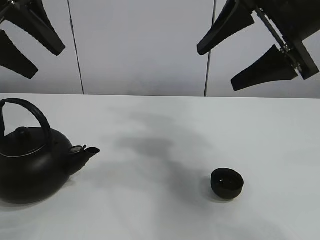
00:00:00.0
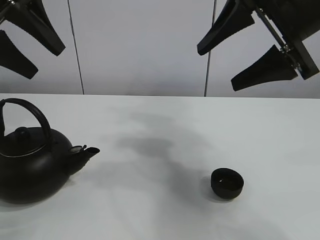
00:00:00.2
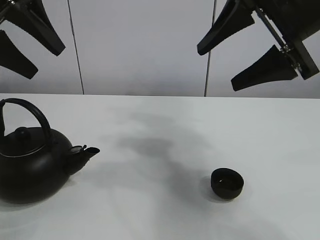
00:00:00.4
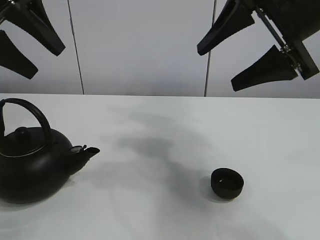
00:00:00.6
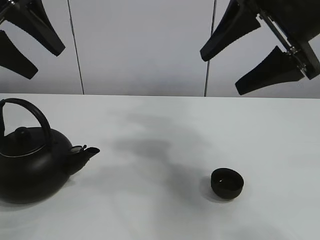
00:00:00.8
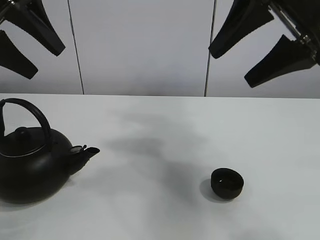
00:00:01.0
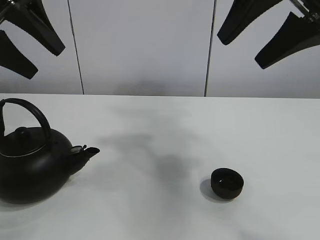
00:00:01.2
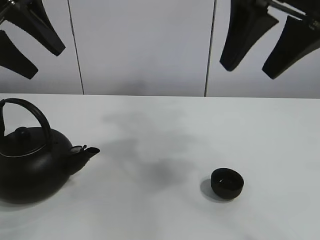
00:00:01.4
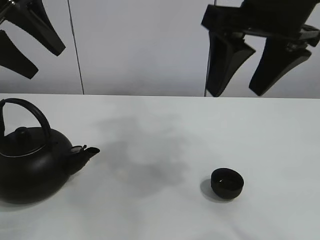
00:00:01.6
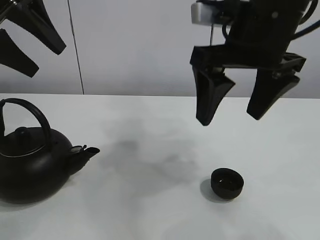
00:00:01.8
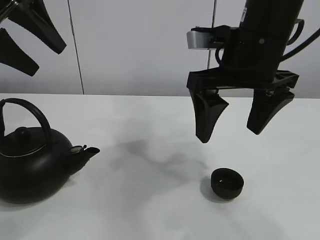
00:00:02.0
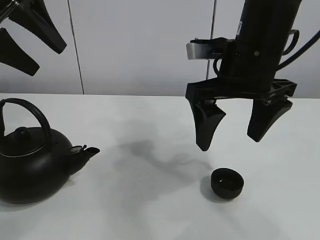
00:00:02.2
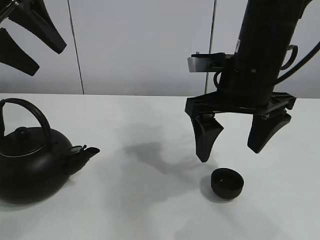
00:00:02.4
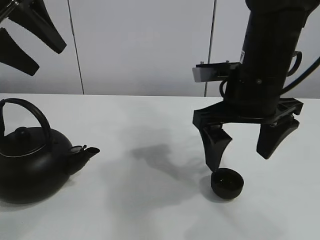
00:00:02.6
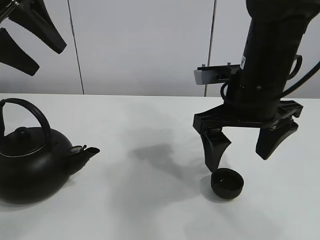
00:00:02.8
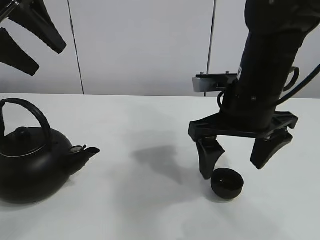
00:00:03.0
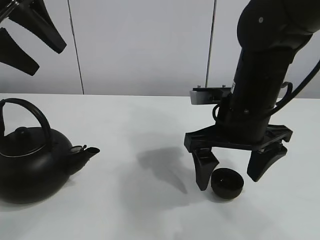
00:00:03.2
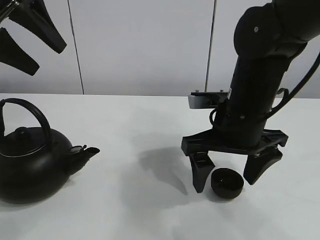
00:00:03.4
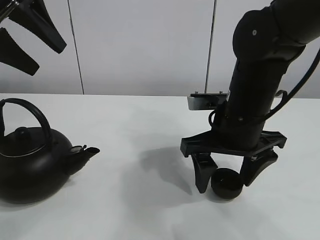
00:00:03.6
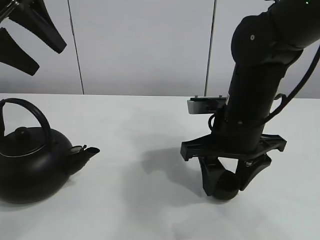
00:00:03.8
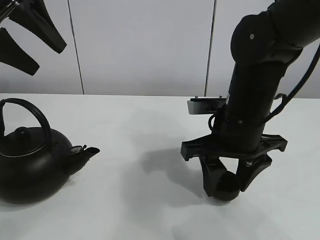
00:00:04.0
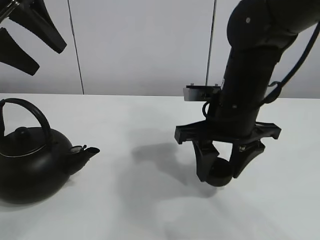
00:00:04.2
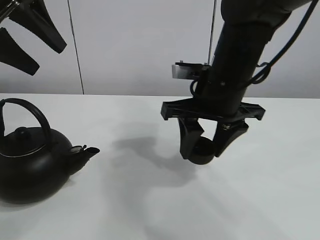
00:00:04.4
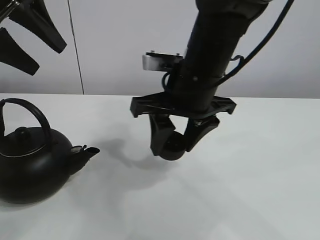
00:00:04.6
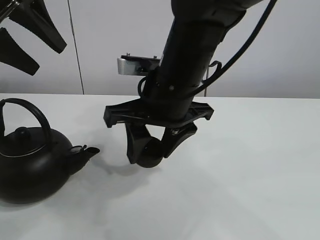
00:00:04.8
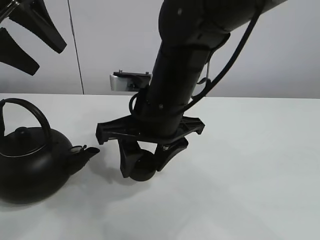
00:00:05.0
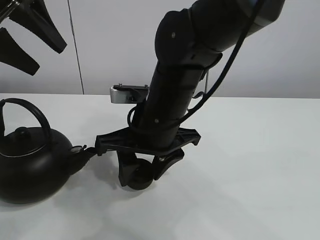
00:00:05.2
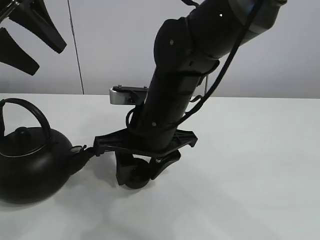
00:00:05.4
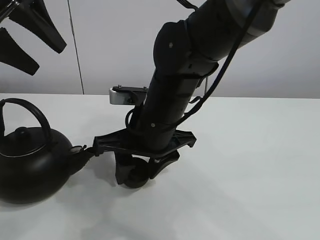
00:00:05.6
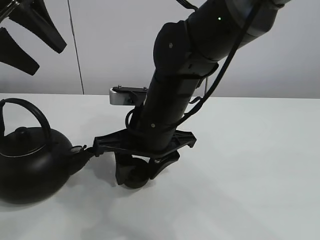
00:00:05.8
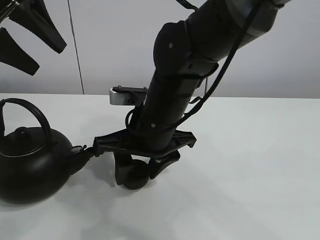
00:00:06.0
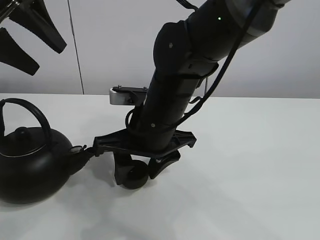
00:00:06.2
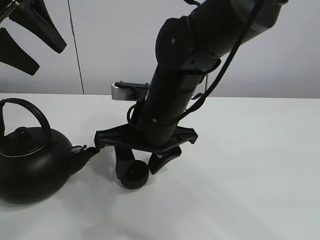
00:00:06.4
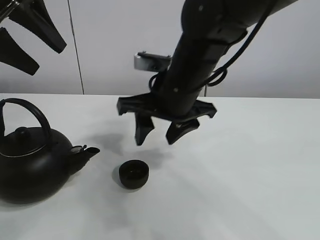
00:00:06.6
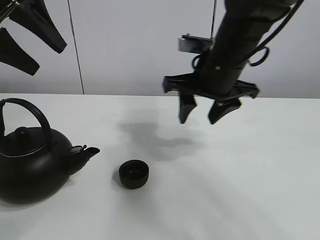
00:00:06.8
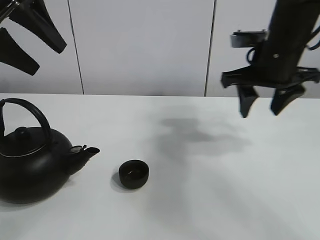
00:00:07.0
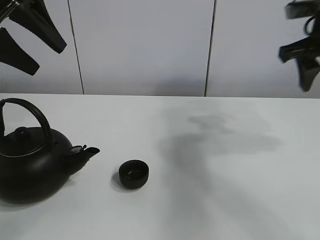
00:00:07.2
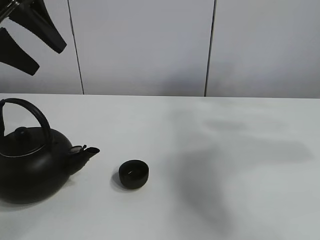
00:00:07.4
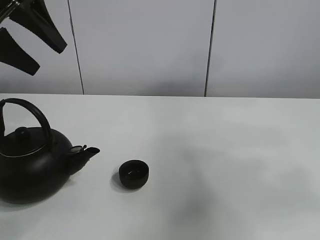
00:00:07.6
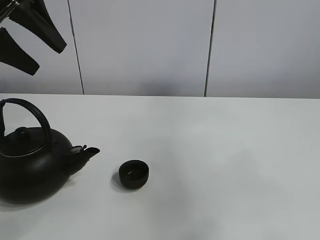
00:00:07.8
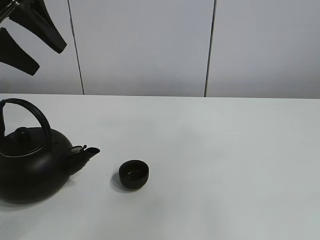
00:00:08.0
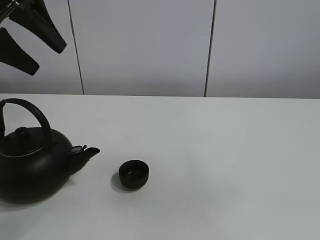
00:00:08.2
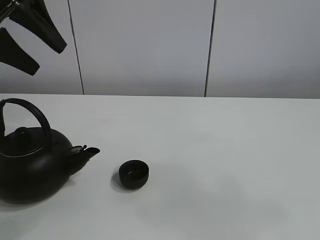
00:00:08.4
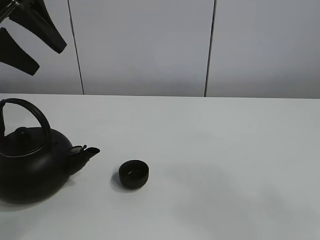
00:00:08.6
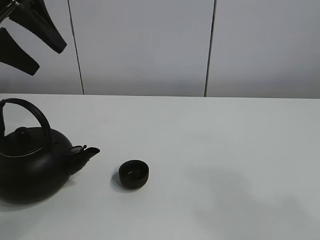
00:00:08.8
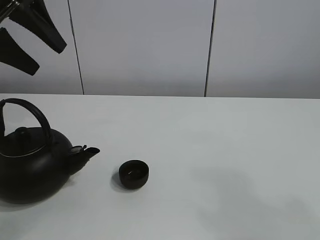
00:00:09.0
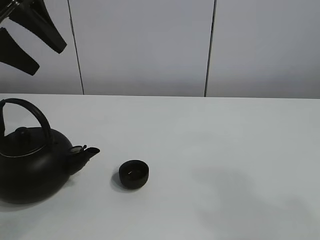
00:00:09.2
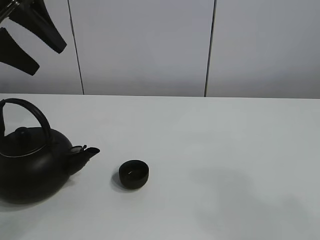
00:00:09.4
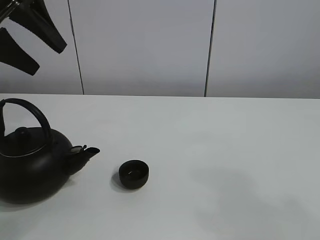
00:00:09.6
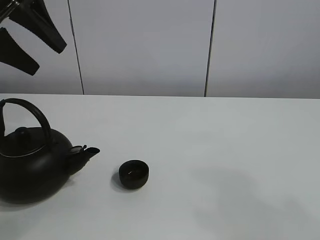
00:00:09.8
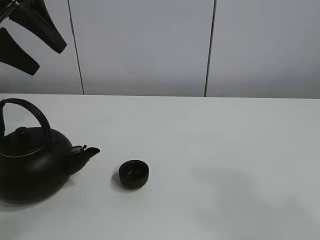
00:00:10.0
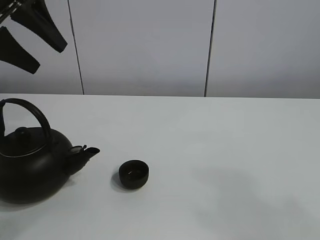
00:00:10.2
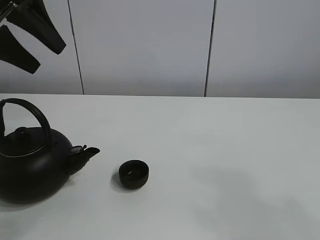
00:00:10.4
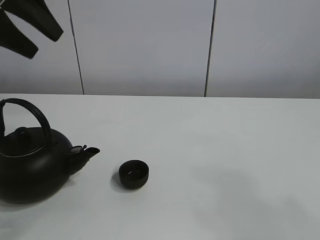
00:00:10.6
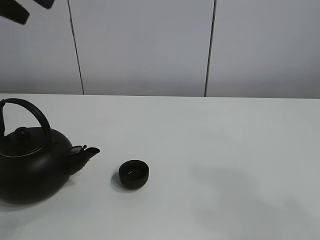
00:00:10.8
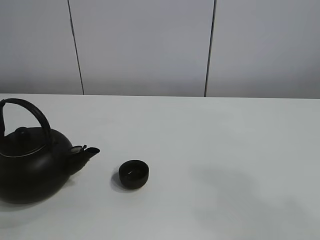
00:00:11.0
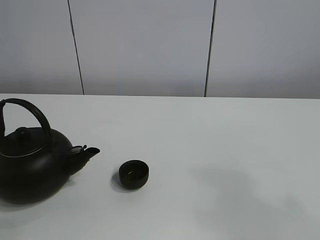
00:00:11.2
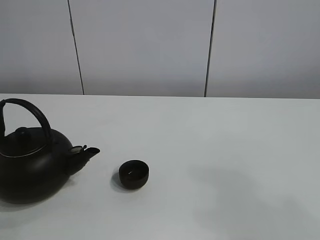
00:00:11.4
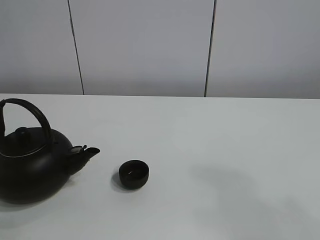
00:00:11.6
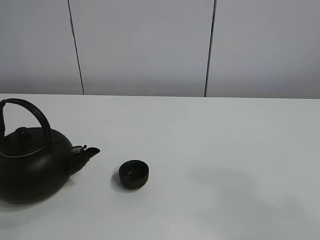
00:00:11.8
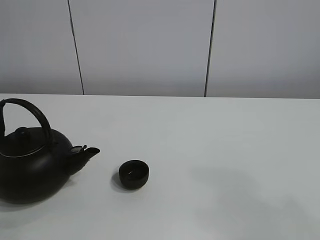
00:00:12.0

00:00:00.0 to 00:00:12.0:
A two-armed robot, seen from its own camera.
Task of the whole recording: pour tea into the teacup.
Step, 00:00:00.0 to 00:00:04.0: Pick up the teacup with the right gripper.
Step, 00:00:04.2 to 00:00:06.2: Place the teacup in the center of view with the right gripper.
Step, 00:00:06.4 to 00:00:11.4: Pick up the teapot with the left gripper.
00:00:01.6 to 00:00:03.0: The right gripper shifts about 15 cm downward, and opens its fingers.
00:00:03.0 to 00:00:04.4: The right gripper closes.
00:00:04.4 to 00:00:06.0: The right gripper heads to the left and downward, covering about 10 cm.
00:00:06.0 to 00:00:07.6: The right gripper travels to the right and upward by some 50 cm.
00:00:07.6 to 00:00:09.0: The right gripper is displaced backward and downward by about 25 cm.
00:00:10.4 to 00:00:12.0: The left gripper is displaced backward by approximately 20 cm.

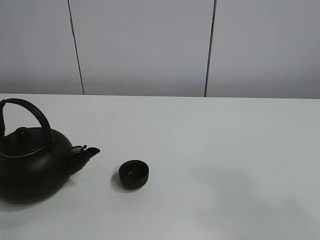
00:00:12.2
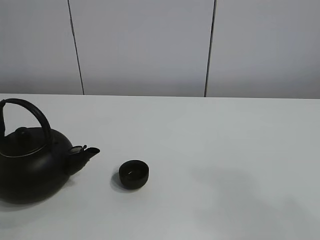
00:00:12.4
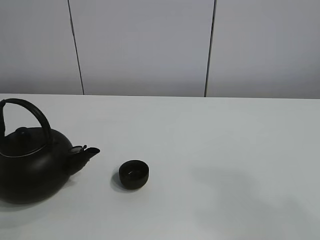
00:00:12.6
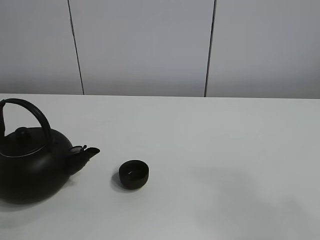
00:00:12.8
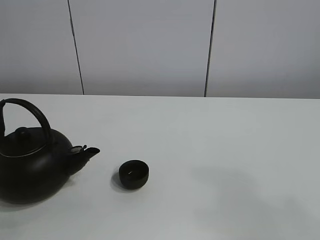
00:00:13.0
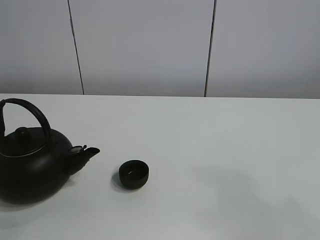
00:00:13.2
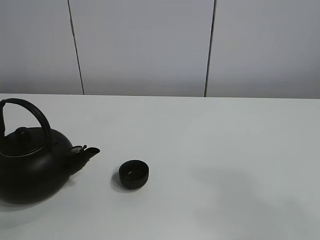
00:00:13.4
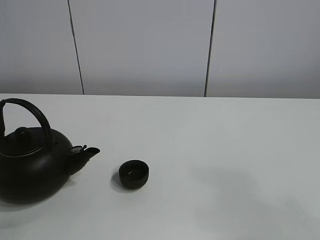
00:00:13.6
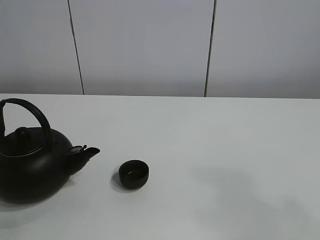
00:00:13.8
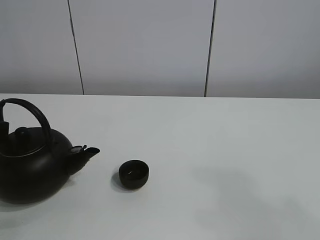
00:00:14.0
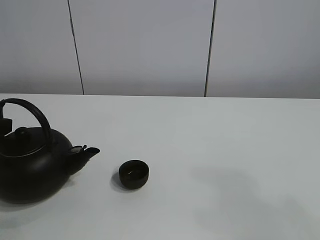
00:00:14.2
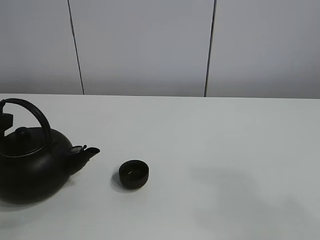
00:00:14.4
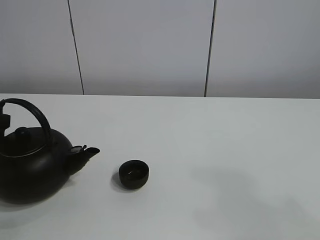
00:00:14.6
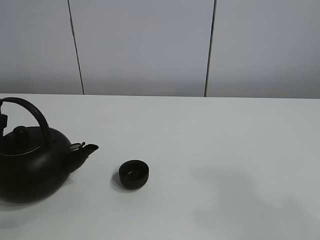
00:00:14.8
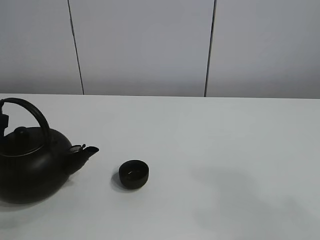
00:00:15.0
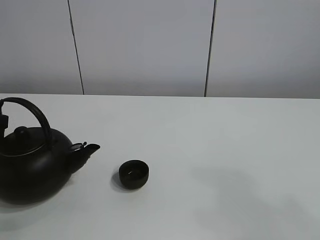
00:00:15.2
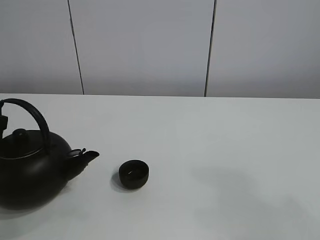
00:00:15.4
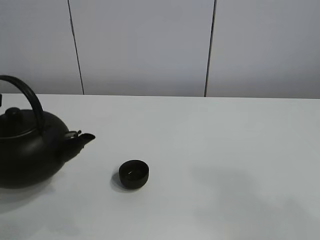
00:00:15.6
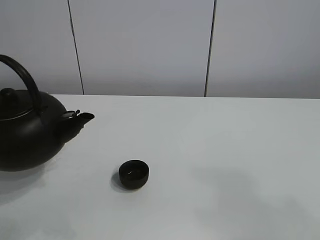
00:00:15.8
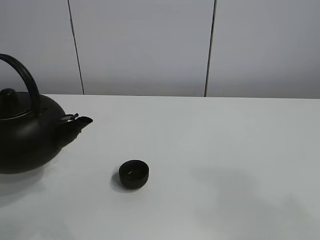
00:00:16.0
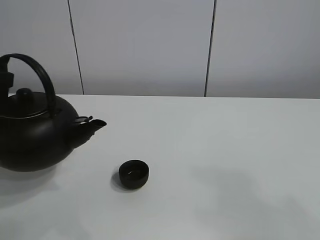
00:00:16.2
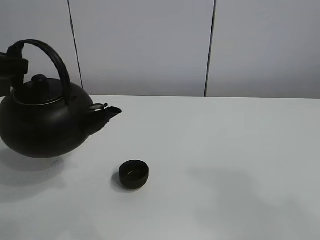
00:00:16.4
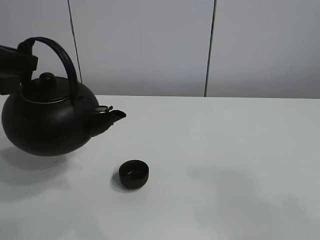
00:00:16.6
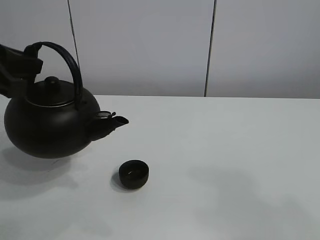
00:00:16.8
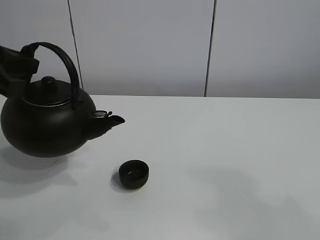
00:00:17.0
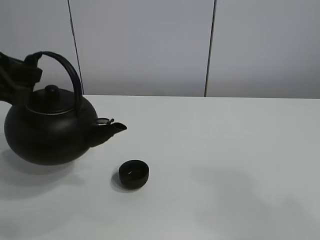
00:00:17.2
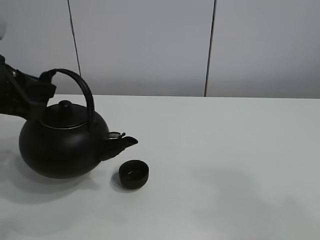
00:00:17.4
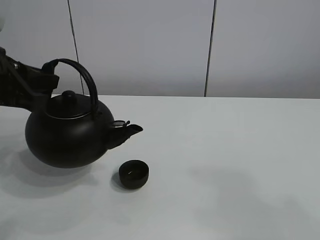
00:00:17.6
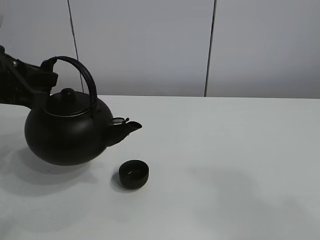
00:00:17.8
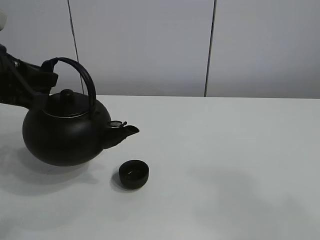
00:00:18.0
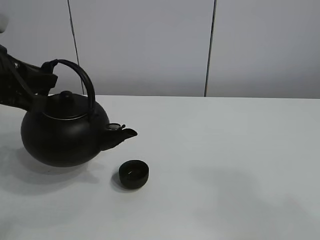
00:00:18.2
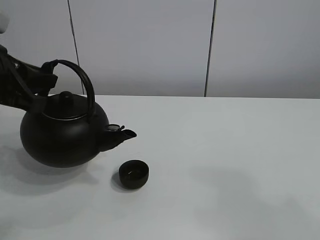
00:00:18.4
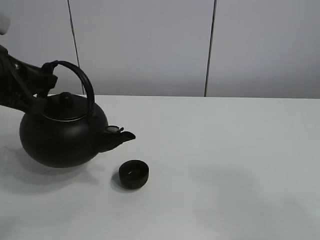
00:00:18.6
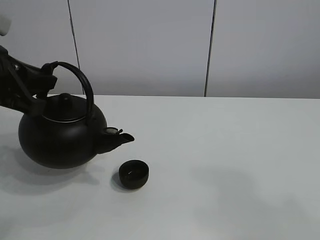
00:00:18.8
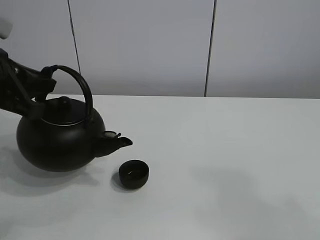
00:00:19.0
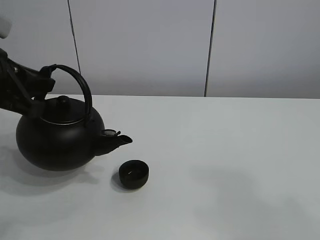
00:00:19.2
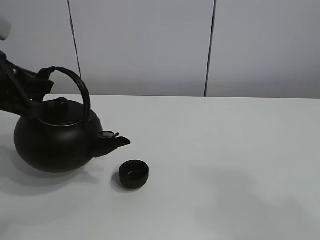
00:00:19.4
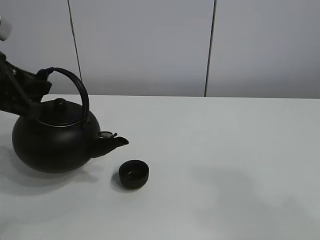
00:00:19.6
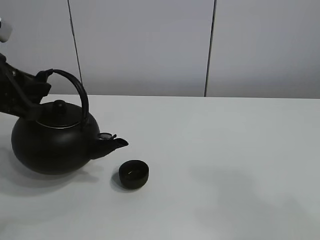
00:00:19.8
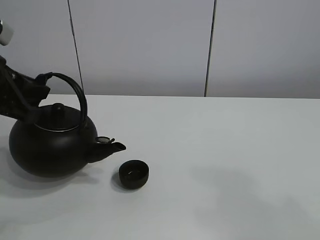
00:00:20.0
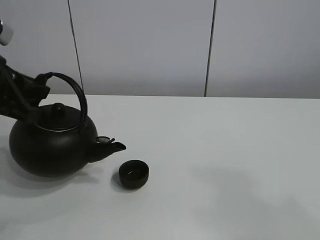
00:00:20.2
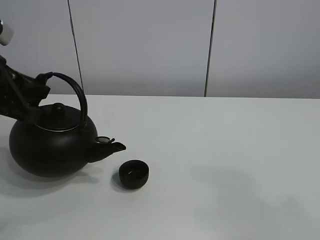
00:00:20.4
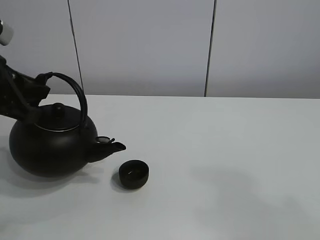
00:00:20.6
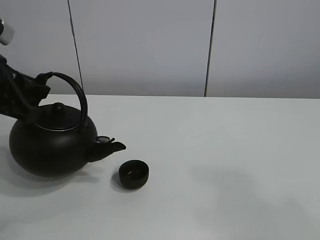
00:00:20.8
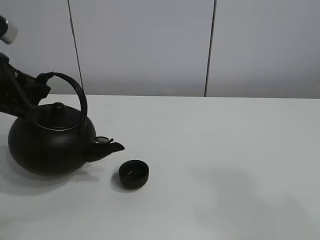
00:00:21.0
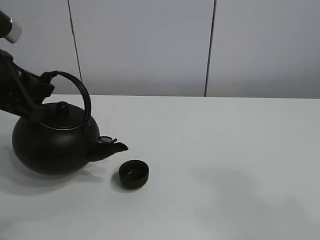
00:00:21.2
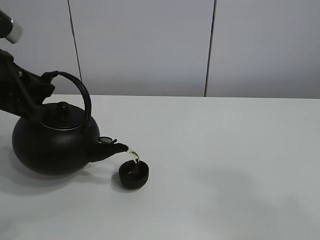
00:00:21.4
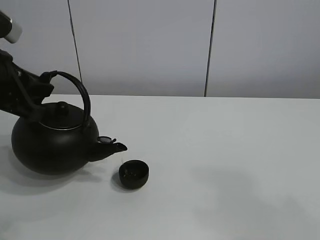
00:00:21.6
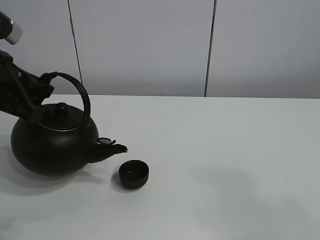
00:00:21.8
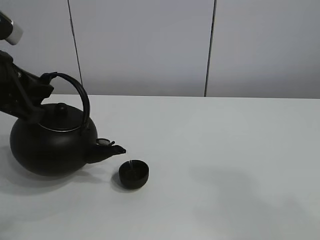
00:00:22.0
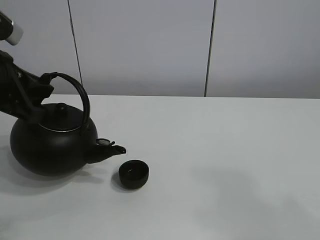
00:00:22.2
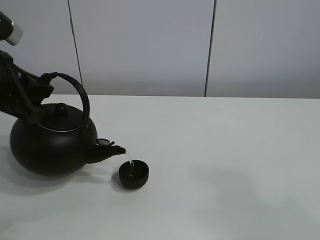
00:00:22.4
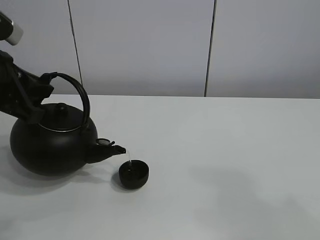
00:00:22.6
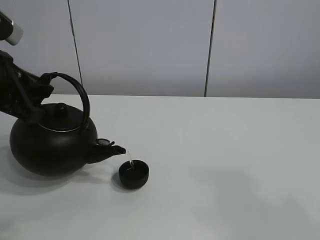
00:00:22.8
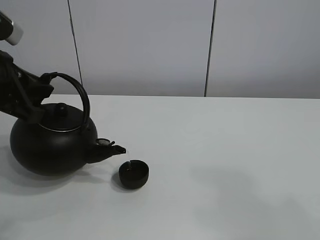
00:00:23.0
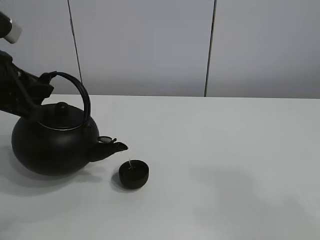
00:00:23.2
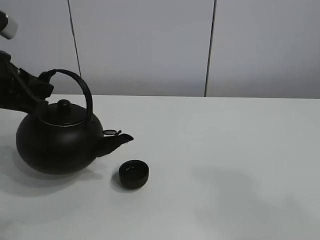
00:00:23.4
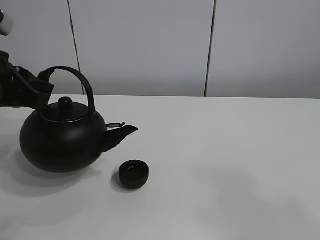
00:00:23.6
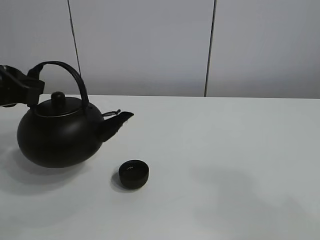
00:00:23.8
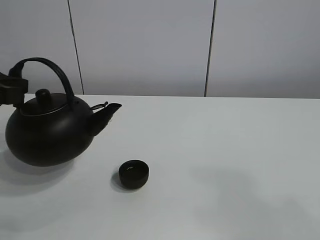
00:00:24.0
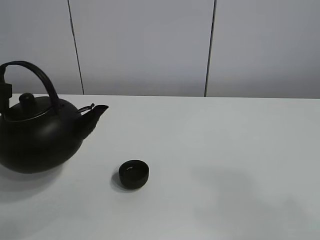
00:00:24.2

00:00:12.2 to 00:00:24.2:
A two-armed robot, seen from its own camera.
Task of the whole recording: pour tea into the teacup.
Step, 00:00:12.2 to 00:00:23.2: Pour tea into the teacup with the left gripper.
00:00:13.8 to 00:00:15.2: The left gripper closes up.
00:00:15.2 to 00:00:16.6: The left gripper heads upward, covering some 10 cm.
00:00:16.6 to 00:00:19.8: The grippers move only a little.
00:00:19.8 to 00:00:21.2: Both grippers stay about where they are.
00:00:21.2 to 00:00:22.6: The two grippers keep their place.
00:00:22.6 to 00:00:24.2: The left gripper is displaced to the left by roughly 5 cm.
